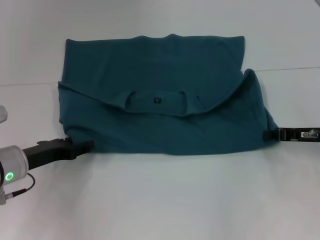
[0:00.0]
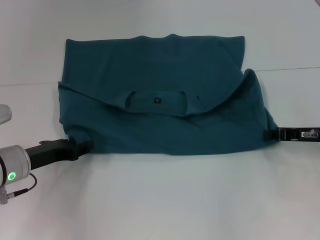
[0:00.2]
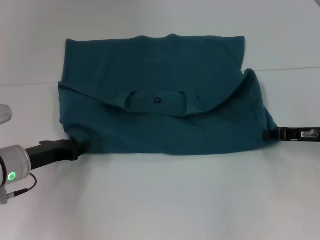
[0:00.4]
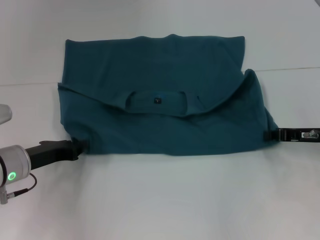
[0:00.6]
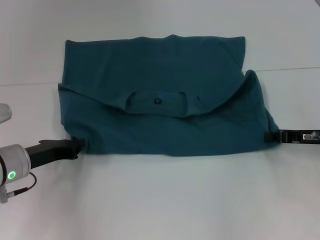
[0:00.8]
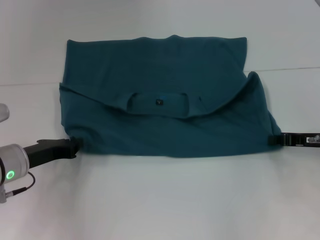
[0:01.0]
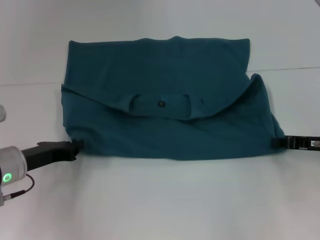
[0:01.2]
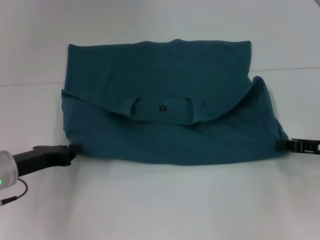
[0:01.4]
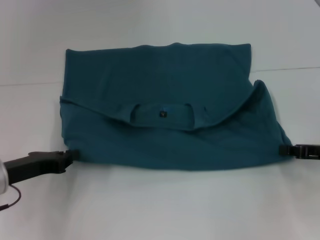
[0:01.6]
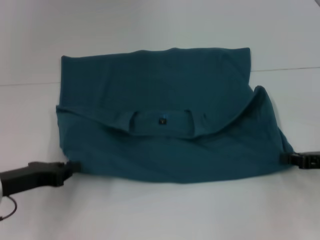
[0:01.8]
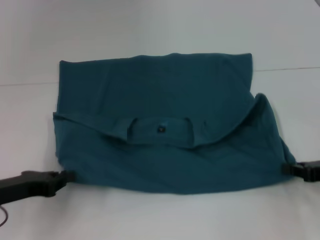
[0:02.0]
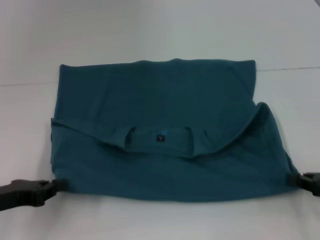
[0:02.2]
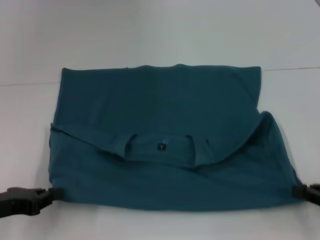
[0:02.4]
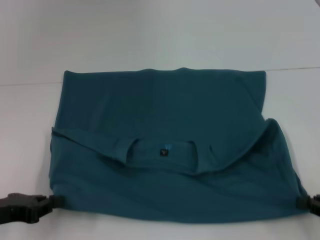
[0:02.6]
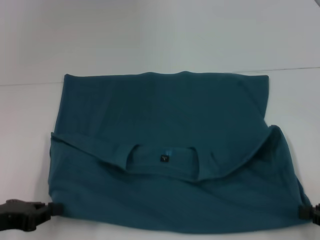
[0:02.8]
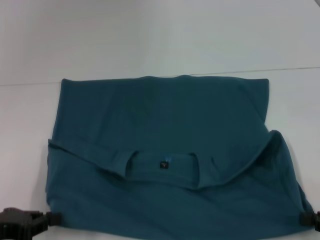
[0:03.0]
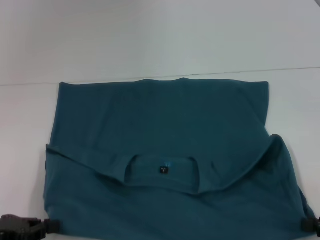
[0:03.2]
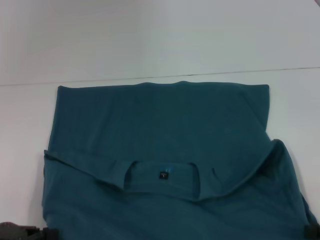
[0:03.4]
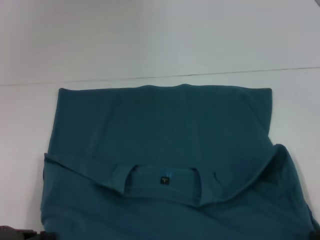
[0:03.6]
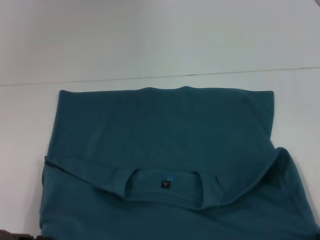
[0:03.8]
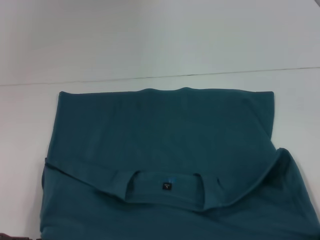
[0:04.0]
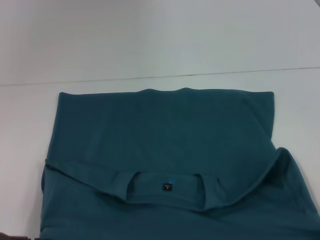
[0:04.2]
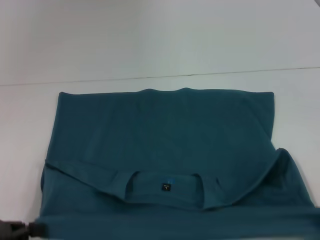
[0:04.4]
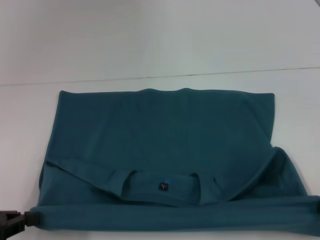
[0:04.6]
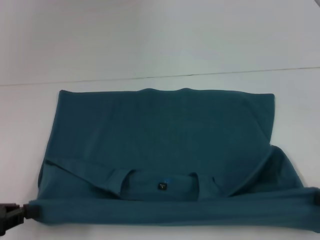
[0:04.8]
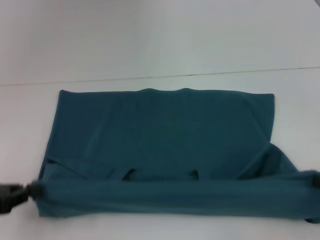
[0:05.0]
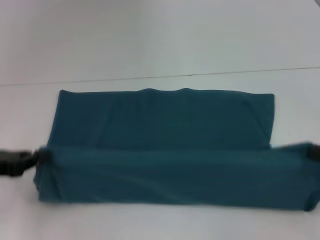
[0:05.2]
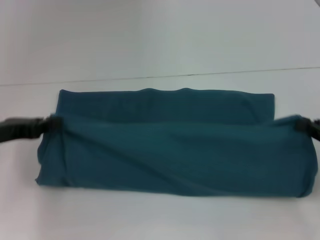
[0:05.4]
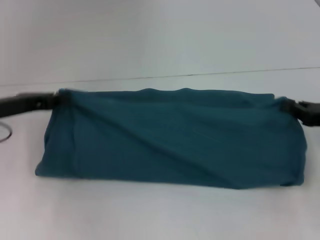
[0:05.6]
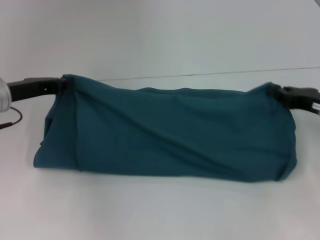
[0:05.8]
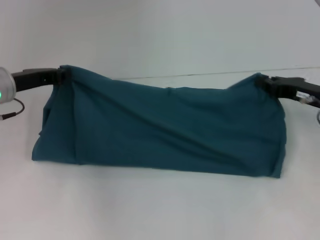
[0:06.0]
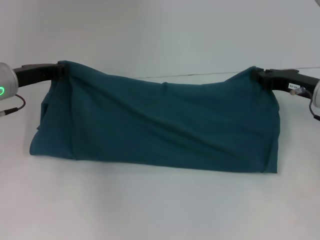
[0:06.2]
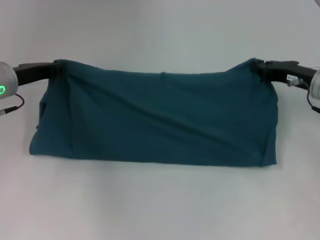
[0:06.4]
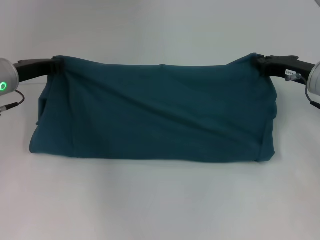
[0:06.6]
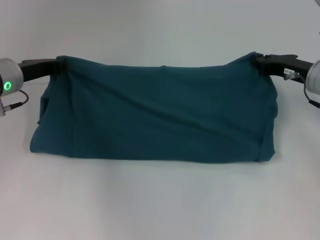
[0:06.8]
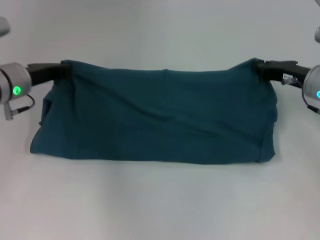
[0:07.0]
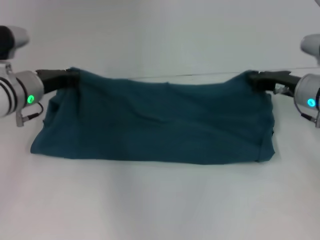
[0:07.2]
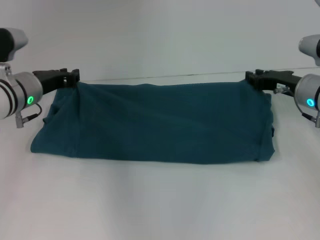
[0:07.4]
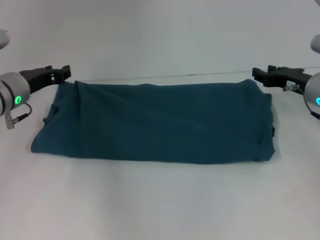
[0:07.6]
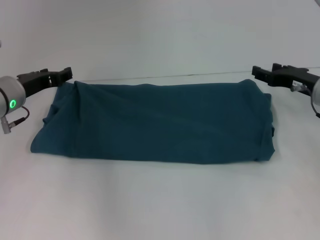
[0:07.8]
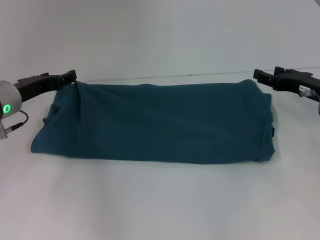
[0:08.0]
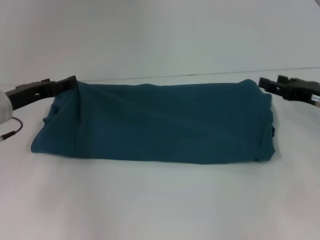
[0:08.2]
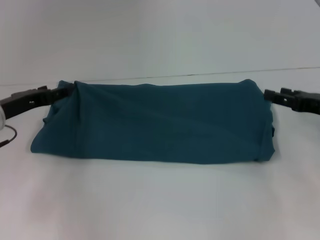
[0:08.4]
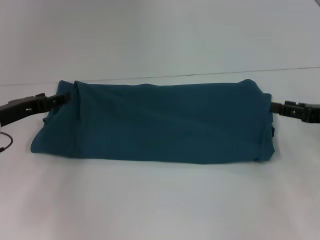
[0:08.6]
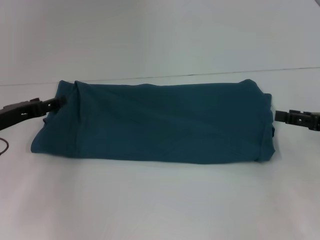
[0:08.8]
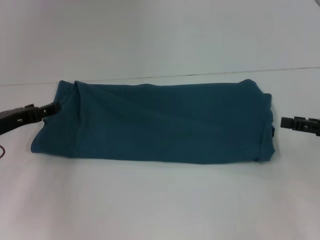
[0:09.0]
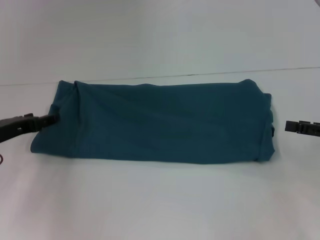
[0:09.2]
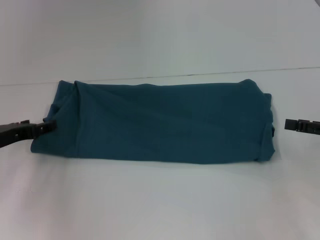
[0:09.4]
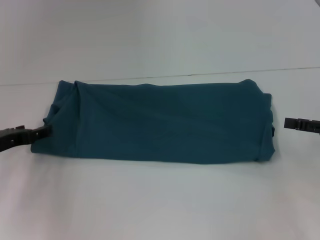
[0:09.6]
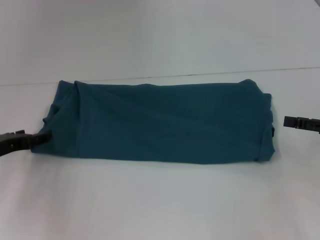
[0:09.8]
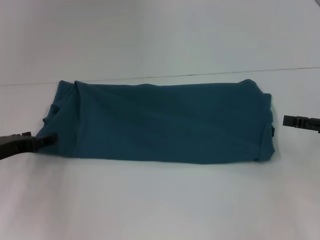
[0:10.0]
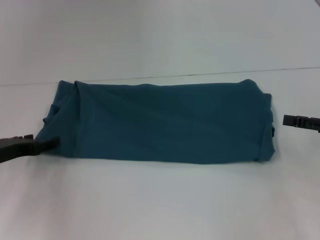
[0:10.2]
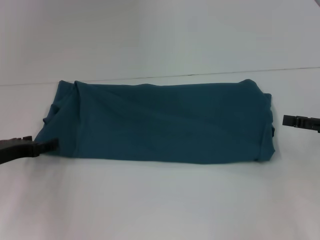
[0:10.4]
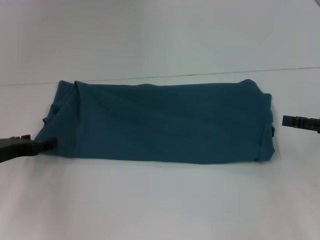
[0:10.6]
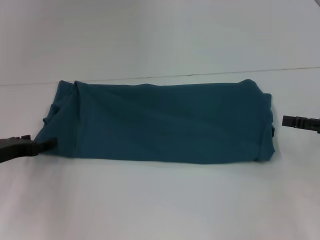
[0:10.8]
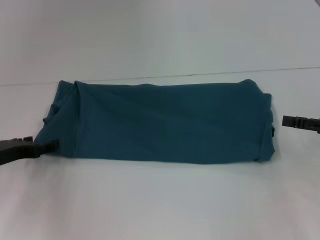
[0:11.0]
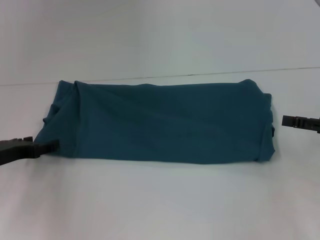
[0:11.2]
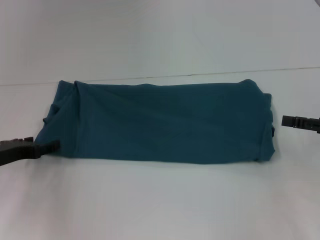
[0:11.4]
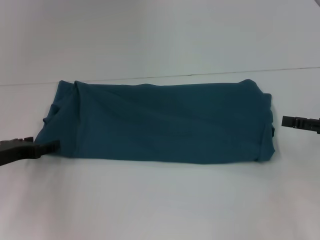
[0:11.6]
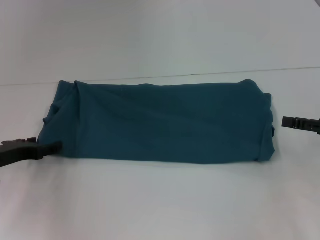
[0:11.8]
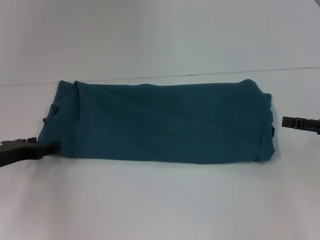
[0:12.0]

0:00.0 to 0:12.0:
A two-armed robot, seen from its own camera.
Step, 0:00.0 to 0:03.8: Pull the clothes with your left hand.
Step, 0:00.0 to 0:03.8: Pull the clothes with your right hand.
Step, 0:04.0 to 0:07.4: Fold the clothes to the left.
Step, 0:04.0 to 0:07.4: Fold the clothes to the right.
0:00.0 to 0:01.6: The left gripper closes up. Meanwhile the right gripper moves roughly 5 cm.
0:01.6 to 0:03.0: The right gripper moves backward, some 10 cm. Meanwhile the left gripper is displaced backward by some 5 cm.
0:03.0 to 0:04.4: There are only small adjustments of the grippers.
0:04.4 to 0:06.0: The right gripper heads forward and to the left, covering about 25 cm, while the left gripper heads forward, covering roughly 20 cm.
0:06.0 to 0:07.6: The grippers make only small movements.
0:07.6 to 0:09.0: The left gripper travels backward and to the left by about 10 cm, and opens. The right gripper travels backward and to the right by some 15 cm, and opens its fingers.
0:09.0 to 0:10.4: The grippers stay close to where they were, moving slightly.
0:10.4 to 0:12.0: Both grippers stay put.

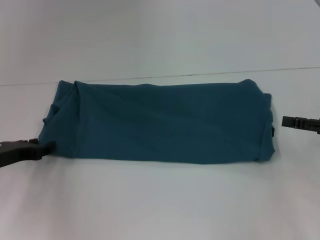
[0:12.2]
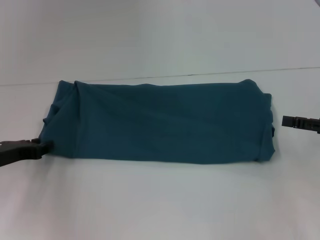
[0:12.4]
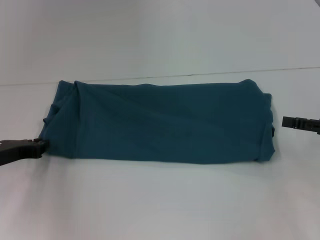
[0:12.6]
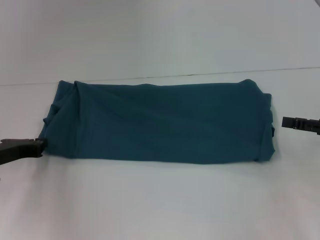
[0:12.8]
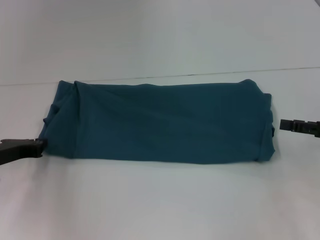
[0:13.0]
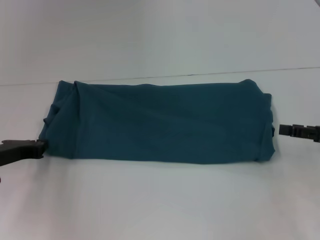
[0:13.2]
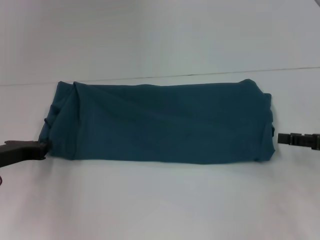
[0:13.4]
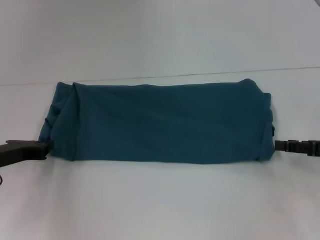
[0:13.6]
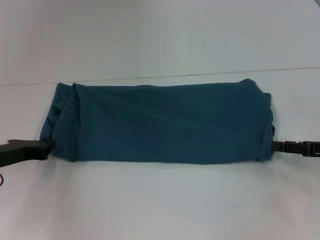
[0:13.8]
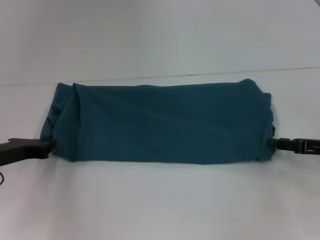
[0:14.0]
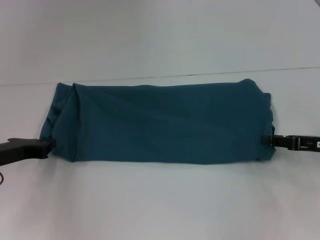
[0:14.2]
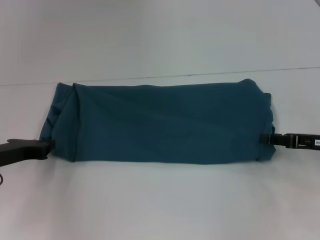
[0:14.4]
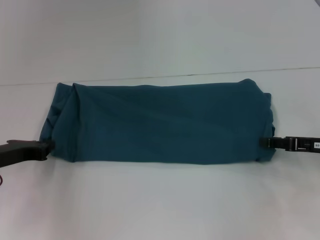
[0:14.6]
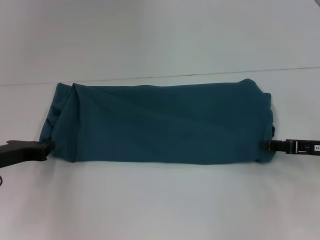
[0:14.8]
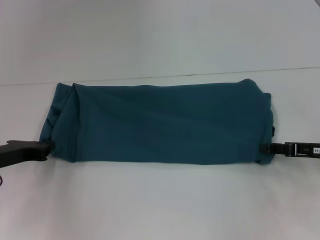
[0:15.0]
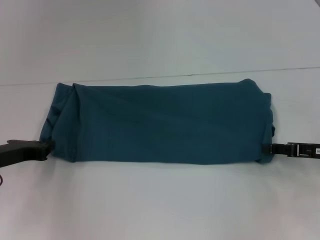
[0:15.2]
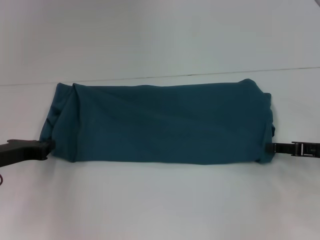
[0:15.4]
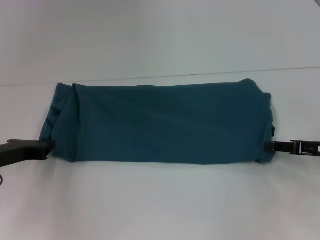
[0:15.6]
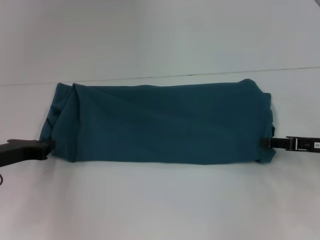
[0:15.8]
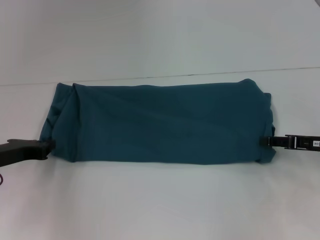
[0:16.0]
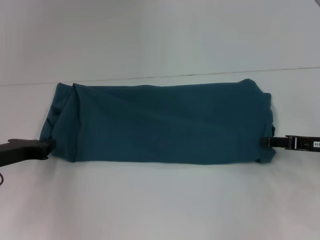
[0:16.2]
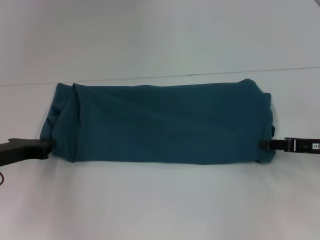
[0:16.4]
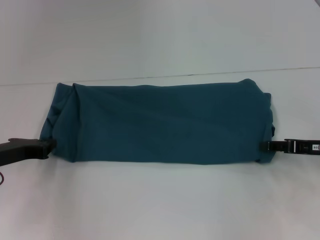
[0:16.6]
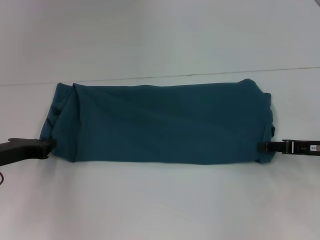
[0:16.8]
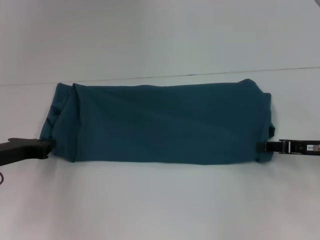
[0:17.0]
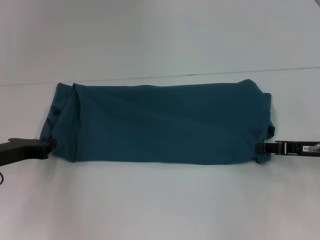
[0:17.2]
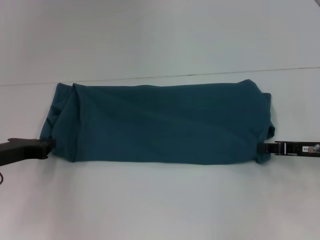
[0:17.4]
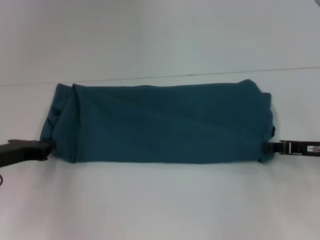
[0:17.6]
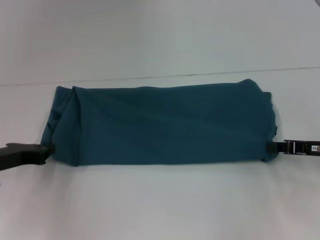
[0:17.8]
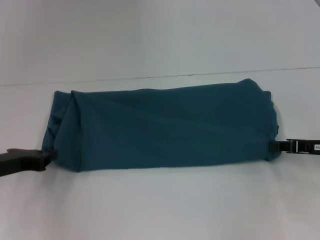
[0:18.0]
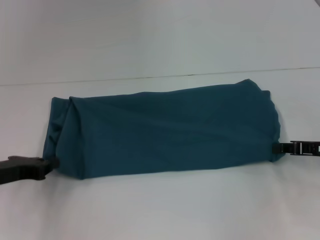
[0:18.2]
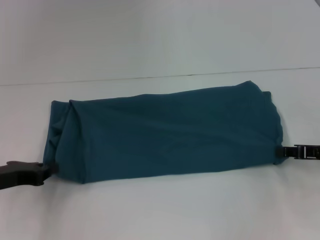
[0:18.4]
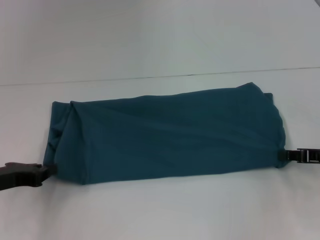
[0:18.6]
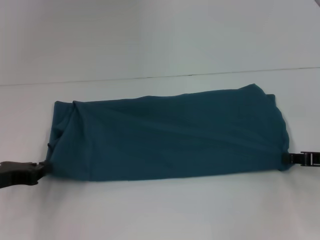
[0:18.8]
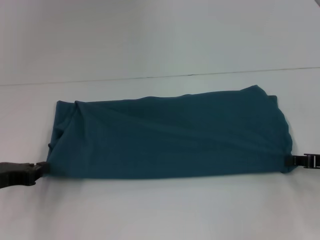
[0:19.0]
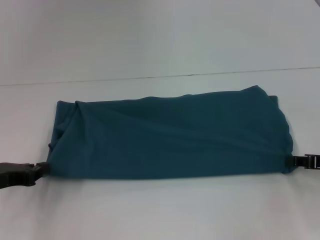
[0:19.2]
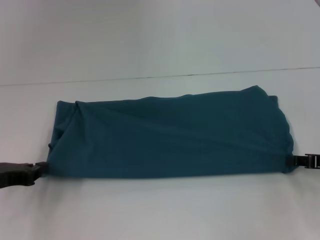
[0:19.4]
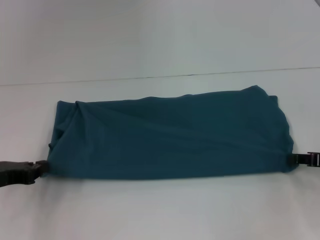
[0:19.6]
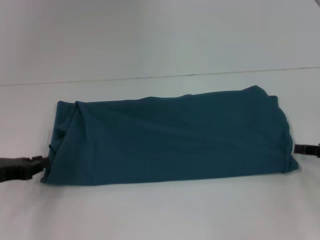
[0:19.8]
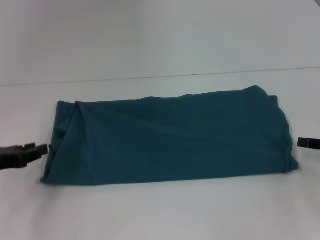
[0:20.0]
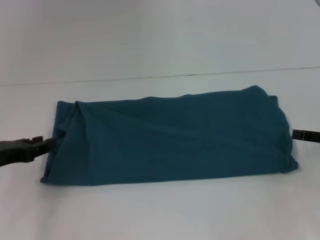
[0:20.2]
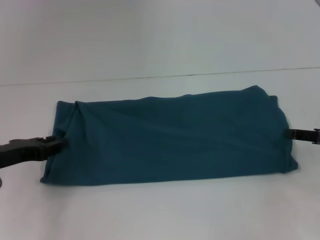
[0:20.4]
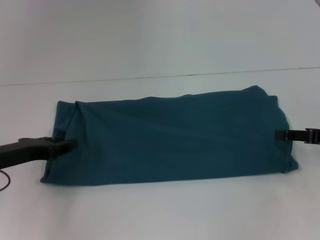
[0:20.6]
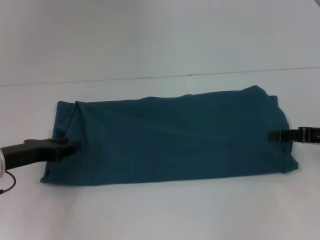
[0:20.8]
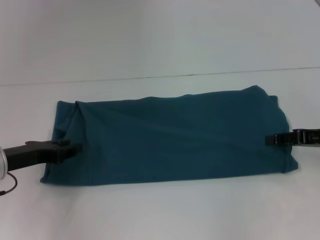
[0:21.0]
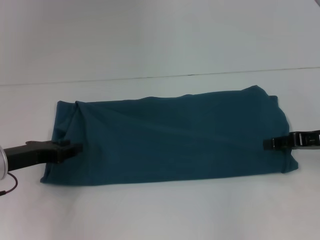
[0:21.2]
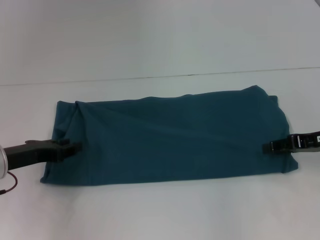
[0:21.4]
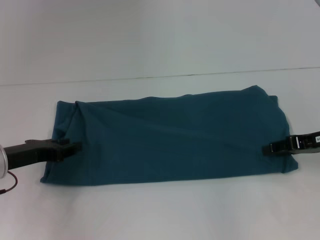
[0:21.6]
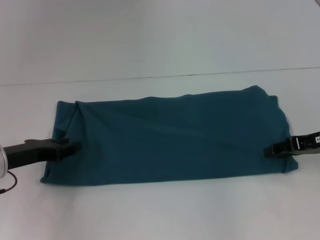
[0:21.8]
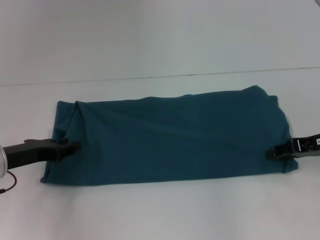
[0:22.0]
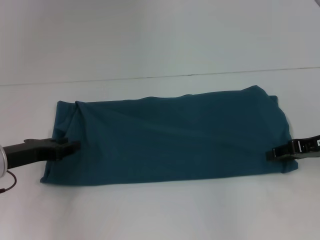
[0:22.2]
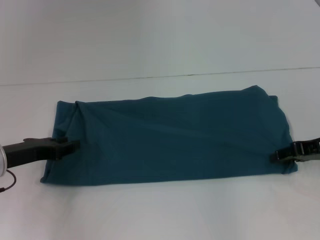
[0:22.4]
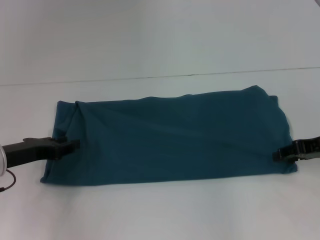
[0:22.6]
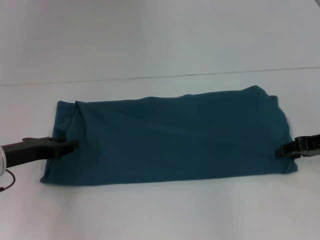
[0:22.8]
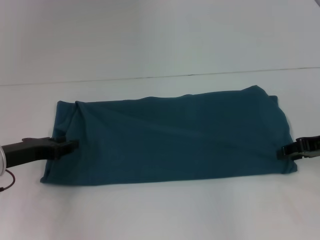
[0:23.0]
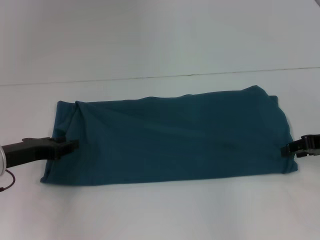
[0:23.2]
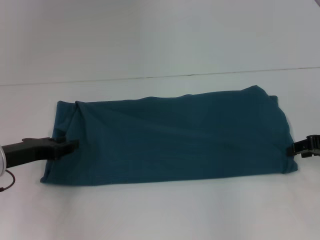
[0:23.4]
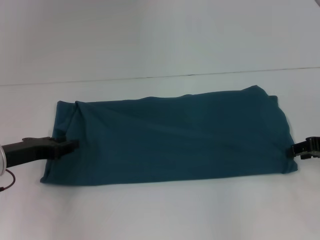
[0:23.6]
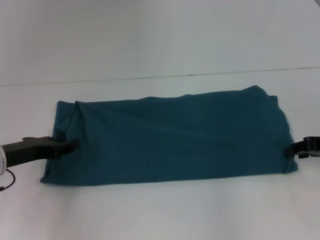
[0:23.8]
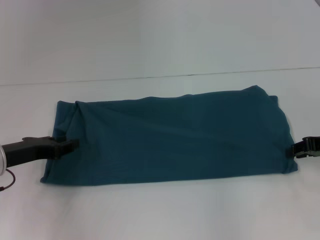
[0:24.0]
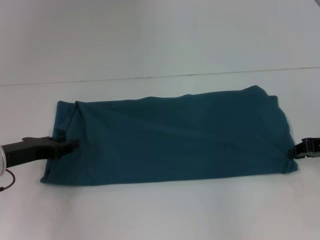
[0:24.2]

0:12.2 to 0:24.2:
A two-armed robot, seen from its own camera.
0:12.2 to 0:13.8: The left gripper closes its fingers.
0:15.2 to 0:16.6: Both grippers stay about where they are.
0:16.6 to 0:18.2: The right gripper closes up.
0:18.2 to 0:19.8: There are only small adjustments of the grippers.
0:19.8 to 0:21.2: The right gripper moves approximately 5 cm, and opens its fingers, while the left gripper moves approximately 5 cm.
0:21.2 to 0:22.6: The grippers stay close to where they were, moving slightly.
